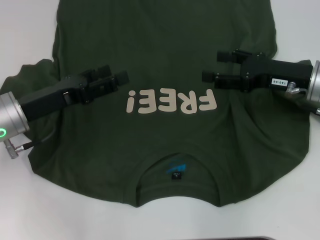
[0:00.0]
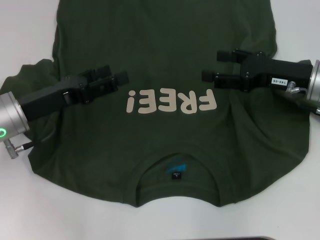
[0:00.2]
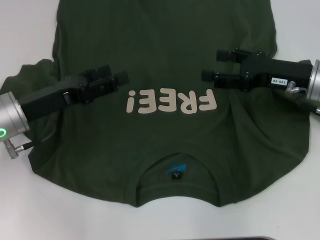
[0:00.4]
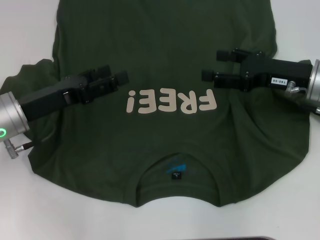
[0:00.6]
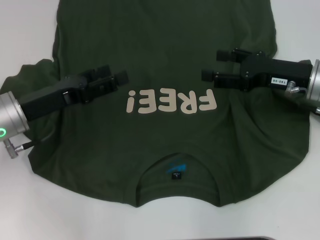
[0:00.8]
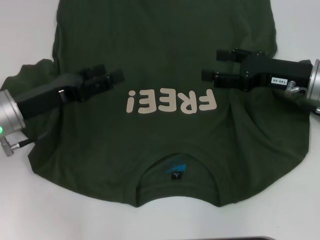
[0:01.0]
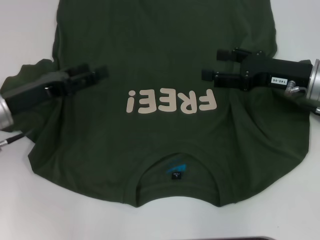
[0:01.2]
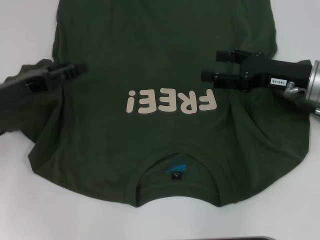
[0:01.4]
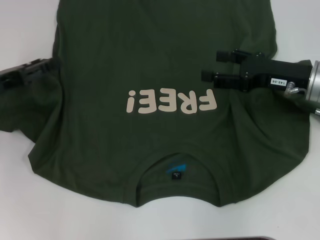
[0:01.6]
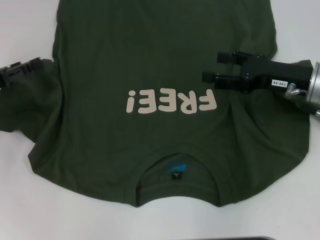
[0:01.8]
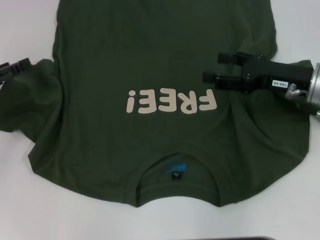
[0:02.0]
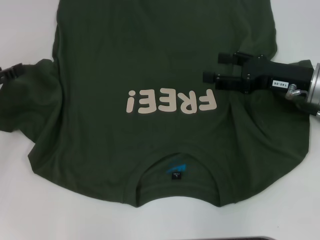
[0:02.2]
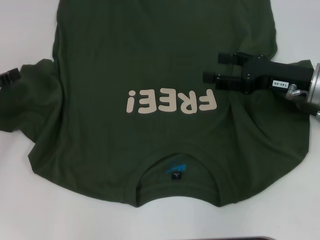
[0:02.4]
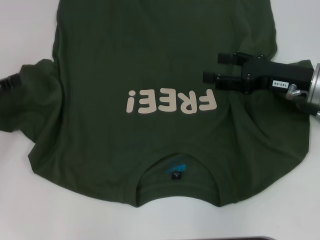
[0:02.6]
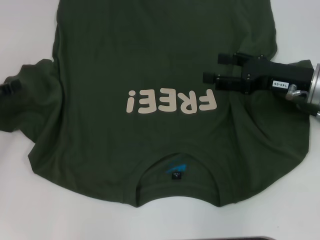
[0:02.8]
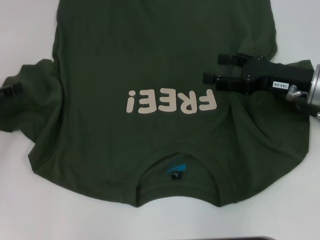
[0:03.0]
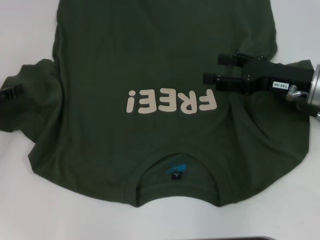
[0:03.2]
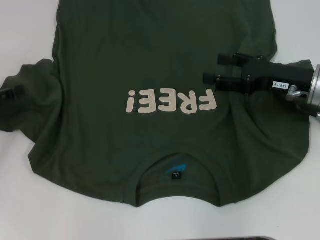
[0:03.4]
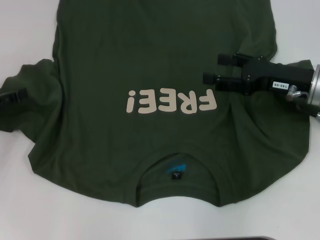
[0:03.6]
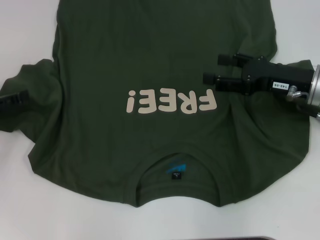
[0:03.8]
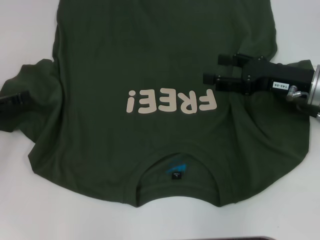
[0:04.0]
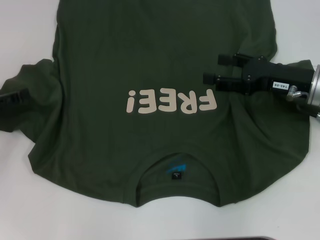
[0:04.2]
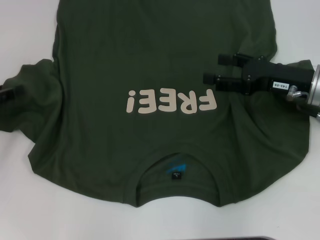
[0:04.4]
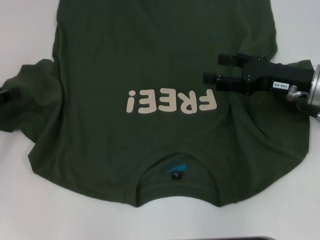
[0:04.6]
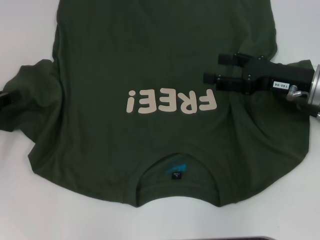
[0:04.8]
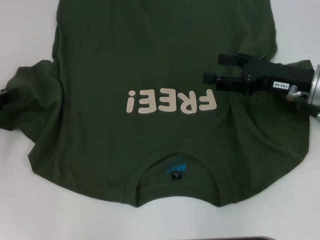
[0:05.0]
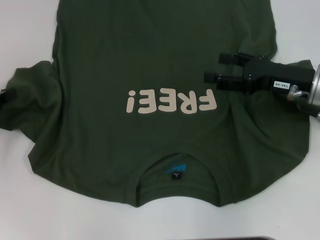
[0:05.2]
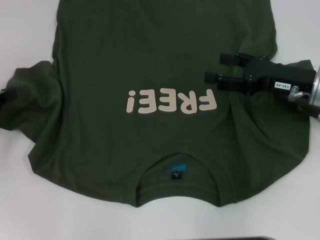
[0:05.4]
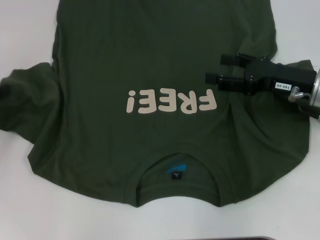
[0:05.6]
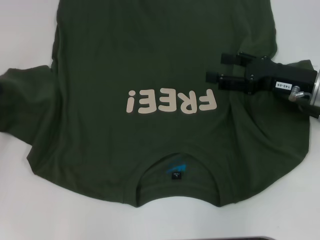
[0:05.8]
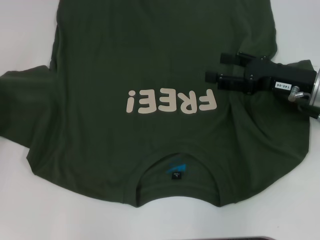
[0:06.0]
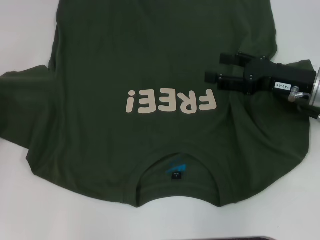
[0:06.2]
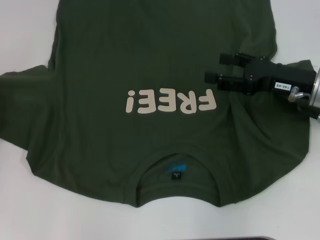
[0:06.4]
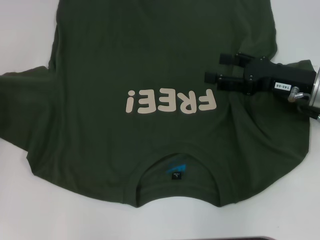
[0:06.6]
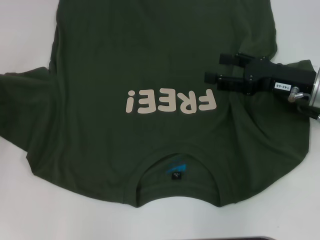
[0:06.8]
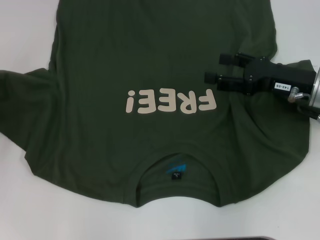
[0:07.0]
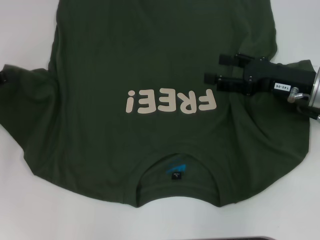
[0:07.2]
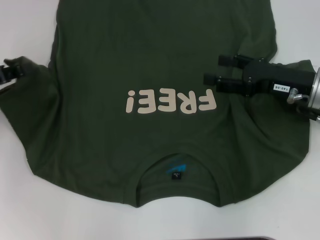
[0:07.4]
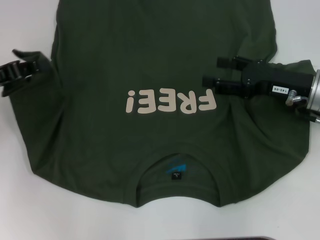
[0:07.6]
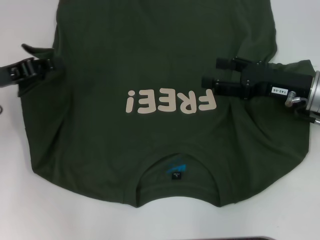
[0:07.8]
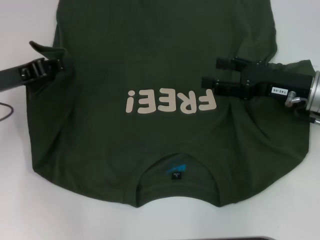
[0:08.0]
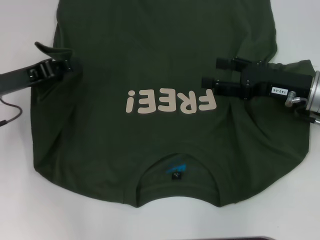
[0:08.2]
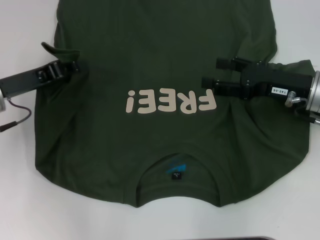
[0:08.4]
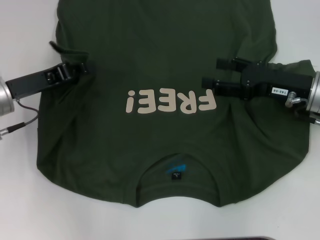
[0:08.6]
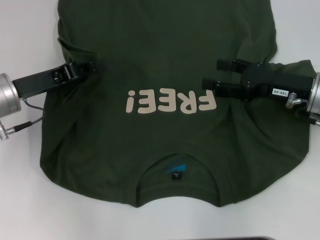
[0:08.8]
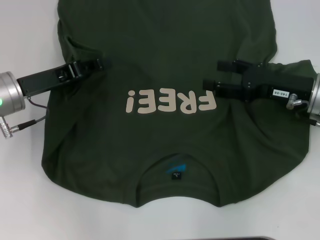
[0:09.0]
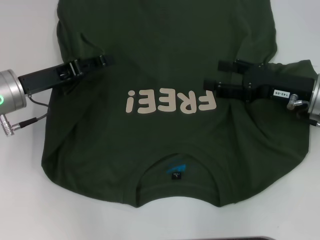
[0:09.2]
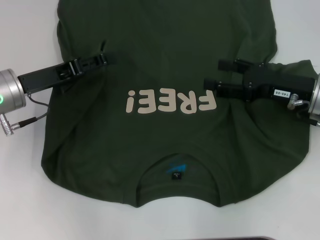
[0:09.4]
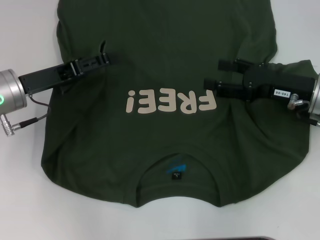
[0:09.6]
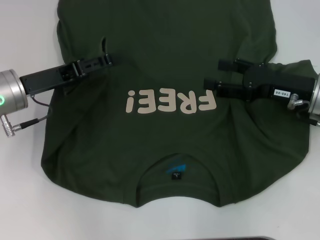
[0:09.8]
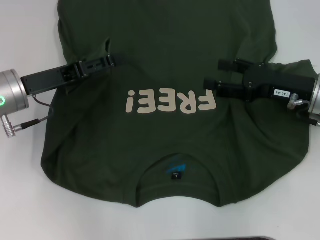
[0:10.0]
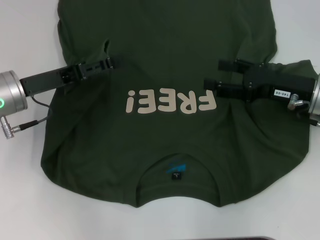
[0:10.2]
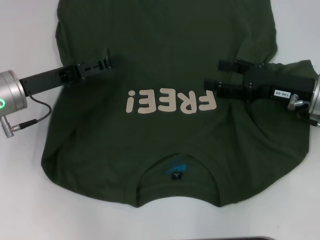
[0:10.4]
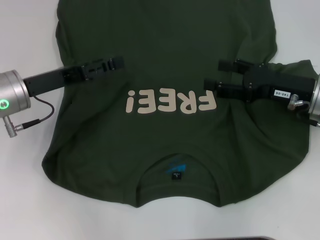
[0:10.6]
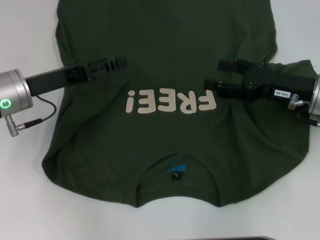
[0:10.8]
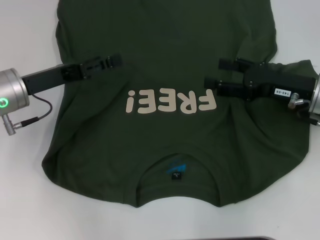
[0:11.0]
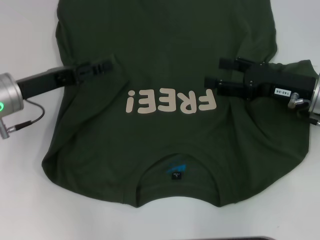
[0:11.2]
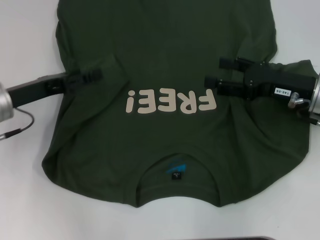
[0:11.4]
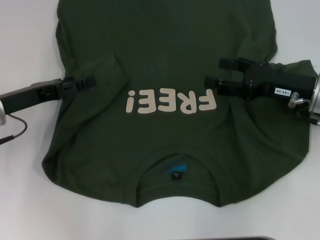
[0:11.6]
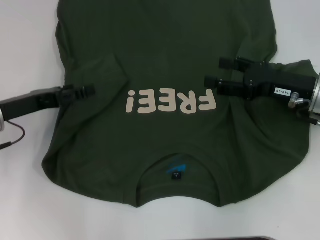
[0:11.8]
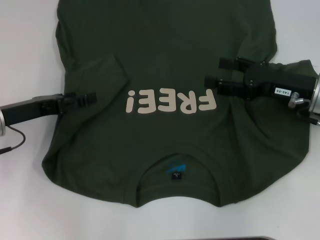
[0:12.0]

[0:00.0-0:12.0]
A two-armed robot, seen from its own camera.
Step, 0:00.0 to 0:11.2: Fold the bottom left sleeve with your left hand.
0:00.0 to 0:01.6: The left gripper shifts some 10 cm to the left.
0:01.6 to 0:03.0: The left gripper heads to the left, covering some 5 cm.
0:03.0 to 0:04.4: Both grippers stay put.
0:04.4 to 0:06.0: The left gripper closes.
0:06.0 to 0:07.6: The left gripper shifts approximately 5 cm to the right.
0:07.6 to 0:09.0: The left gripper shifts roughly 10 cm to the right.
0:09.0 to 0:10.4: The left gripper opens.
0:10.4 to 0:12.0: The grippers stay close to where they were, moving slightly.

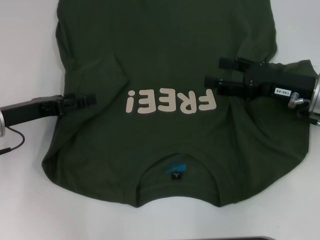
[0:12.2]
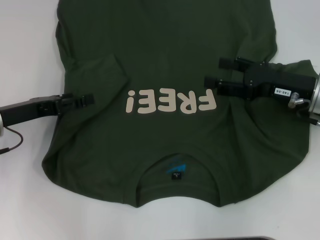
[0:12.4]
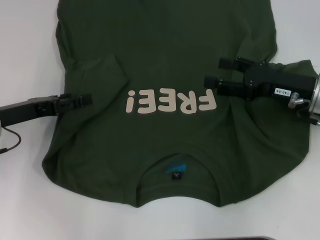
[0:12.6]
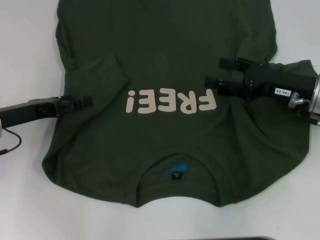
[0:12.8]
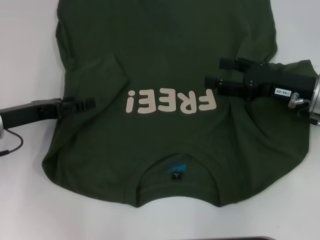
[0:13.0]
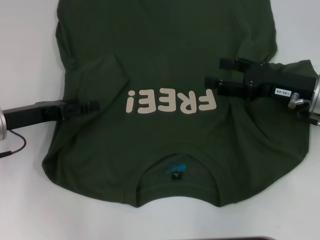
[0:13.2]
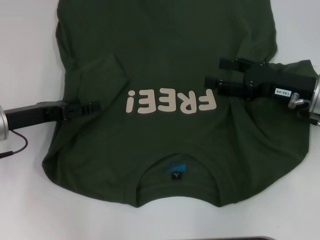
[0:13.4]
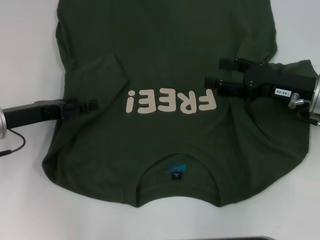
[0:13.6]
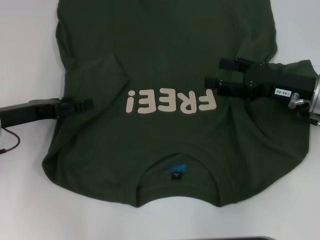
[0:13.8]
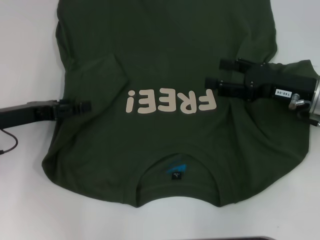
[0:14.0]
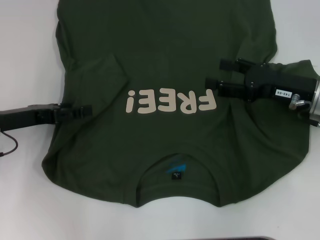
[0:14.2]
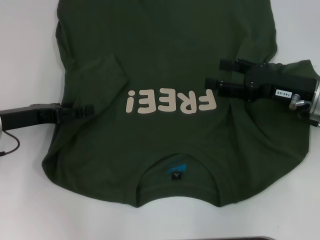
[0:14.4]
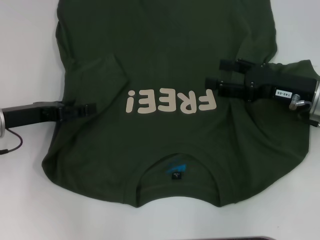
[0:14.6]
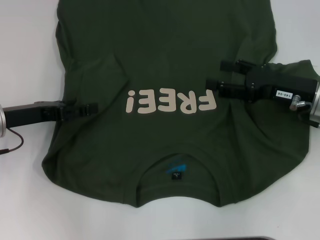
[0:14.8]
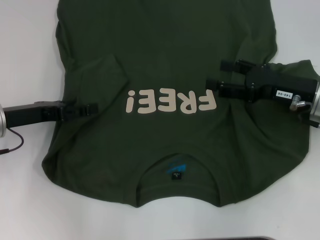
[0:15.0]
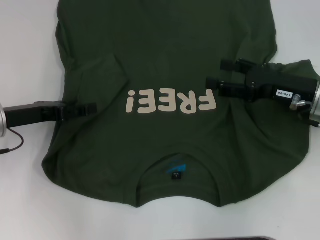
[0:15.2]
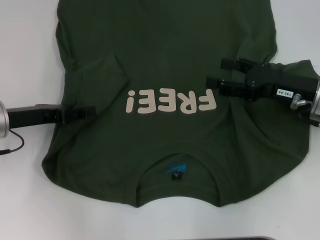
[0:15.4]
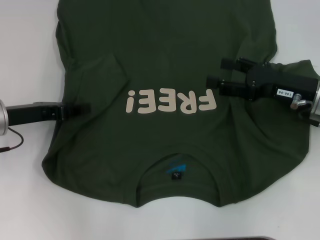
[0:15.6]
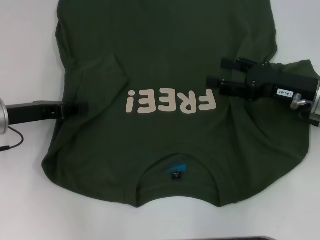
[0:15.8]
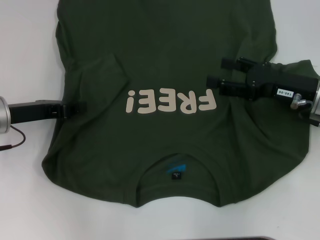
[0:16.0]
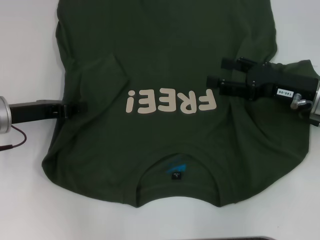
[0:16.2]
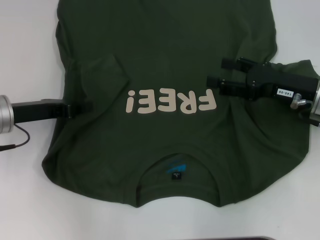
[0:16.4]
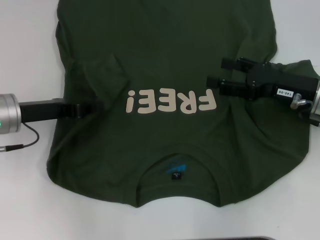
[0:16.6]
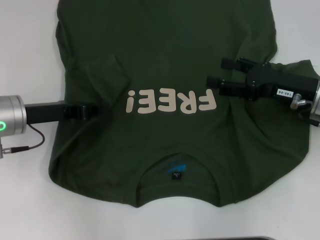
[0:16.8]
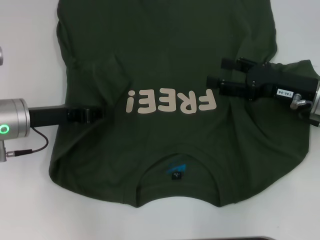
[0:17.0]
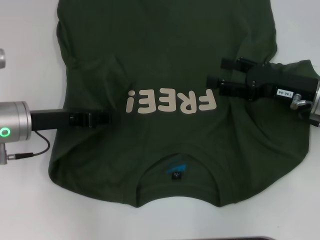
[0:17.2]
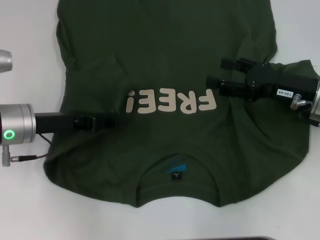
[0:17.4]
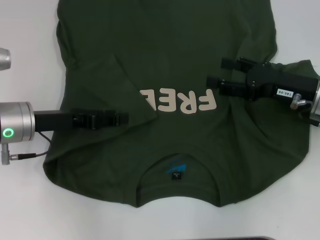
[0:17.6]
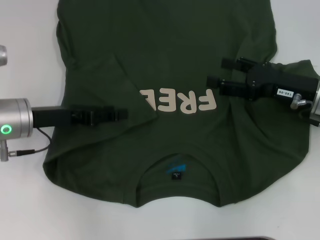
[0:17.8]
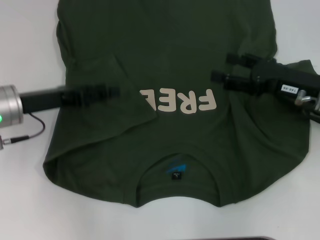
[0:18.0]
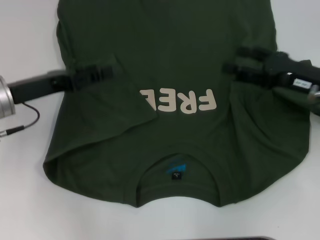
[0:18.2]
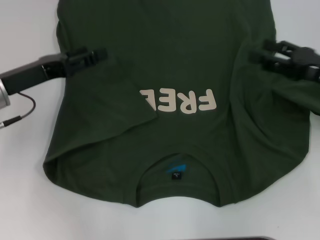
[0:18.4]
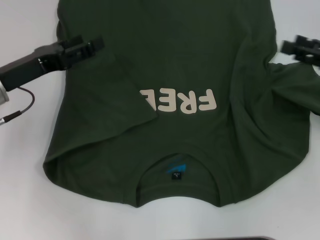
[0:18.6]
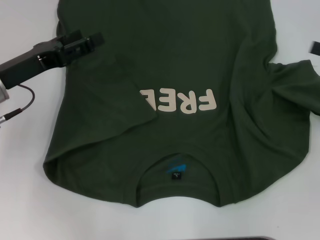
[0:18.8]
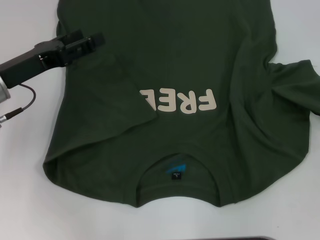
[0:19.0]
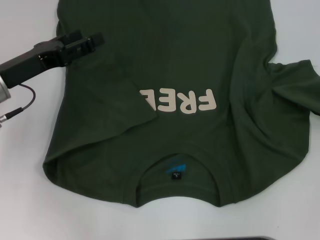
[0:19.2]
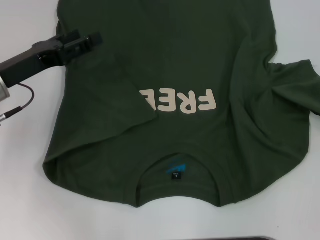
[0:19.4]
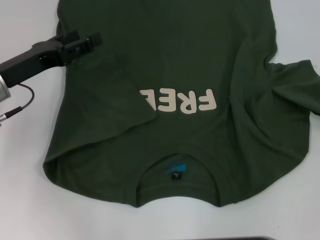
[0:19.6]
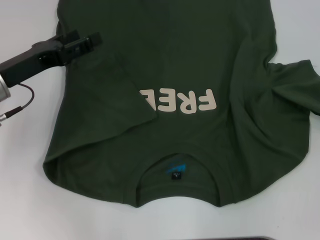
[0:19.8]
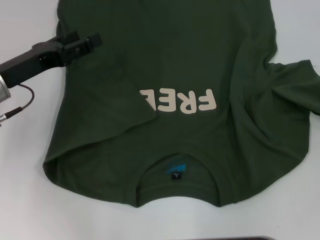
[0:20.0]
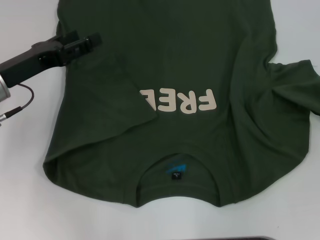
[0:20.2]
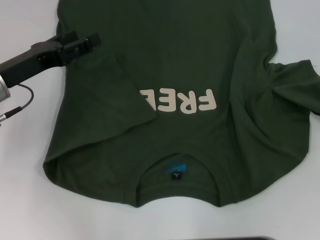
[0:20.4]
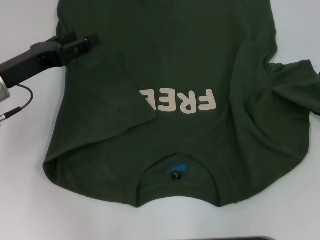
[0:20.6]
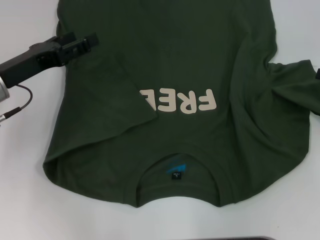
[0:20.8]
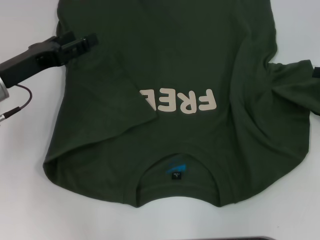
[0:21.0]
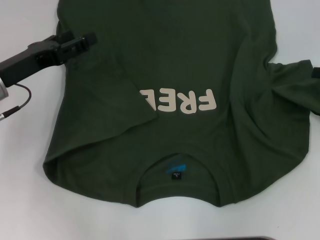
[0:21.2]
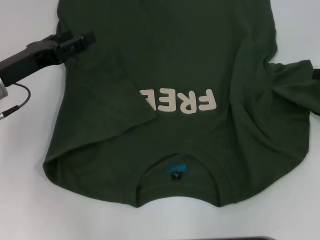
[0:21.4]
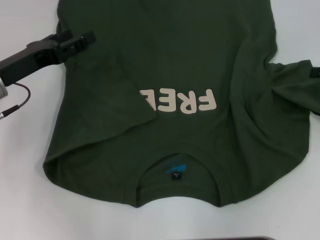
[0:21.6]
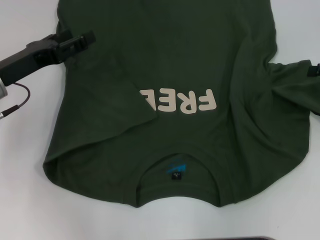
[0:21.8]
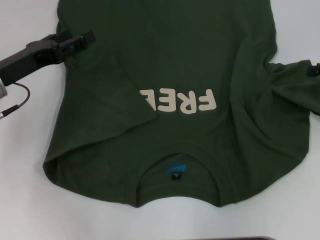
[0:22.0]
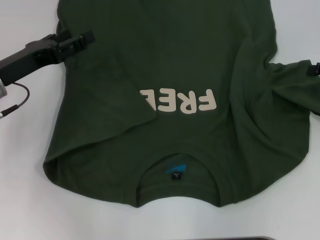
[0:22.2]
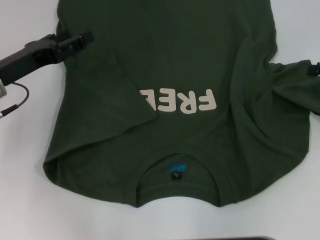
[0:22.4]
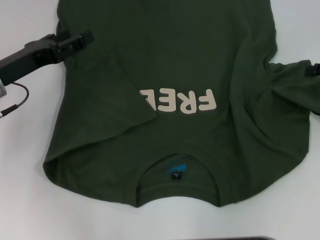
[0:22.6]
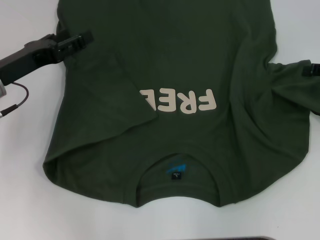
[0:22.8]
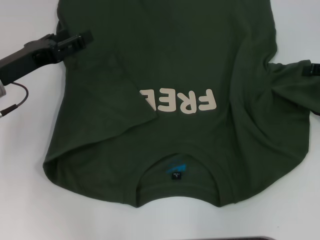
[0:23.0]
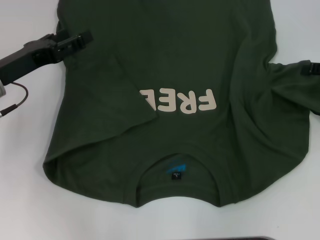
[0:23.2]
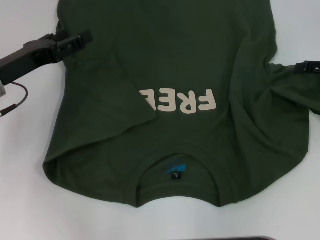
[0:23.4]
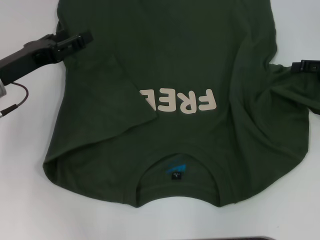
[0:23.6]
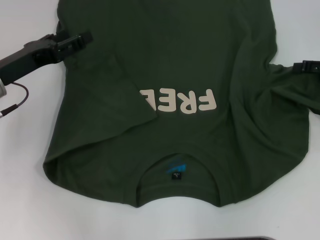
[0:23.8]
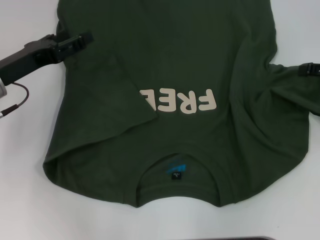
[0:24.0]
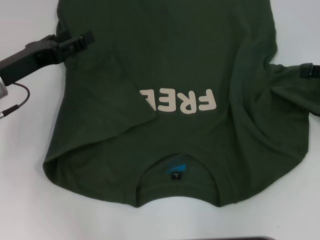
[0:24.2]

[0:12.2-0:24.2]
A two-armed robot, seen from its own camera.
0:12.2 to 0:13.8: The two grippers keep their place.
0:13.8 to 0:15.2: The two grippers keep their place.
0:15.2 to 0:16.6: The left gripper closes.
0:16.6 to 0:18.2: The left gripper opens up.
0:18.2 to 0:19.8: The left gripper opens. The right gripper goes about 15 cm to the right.
0:21.2 to 0:24.2: There are only small adjustments of the grippers.
